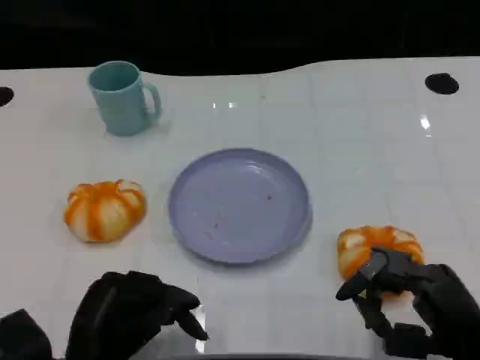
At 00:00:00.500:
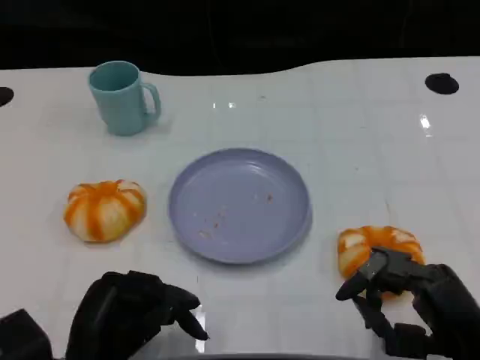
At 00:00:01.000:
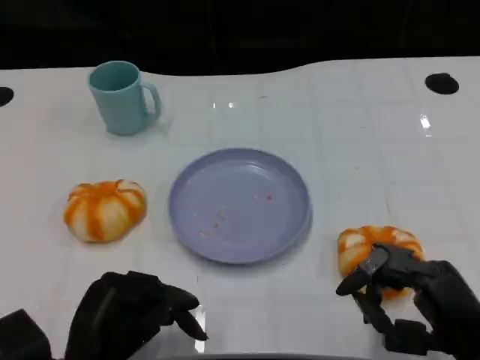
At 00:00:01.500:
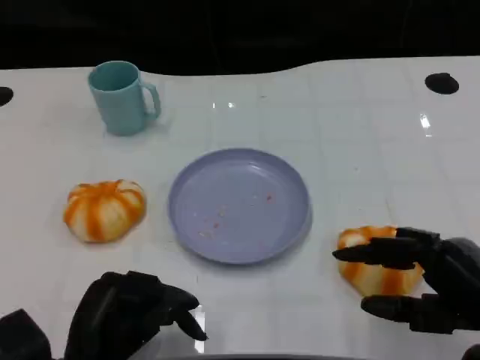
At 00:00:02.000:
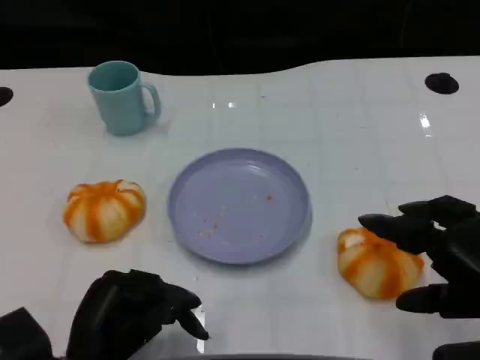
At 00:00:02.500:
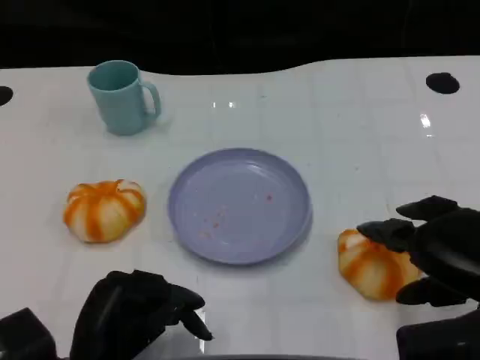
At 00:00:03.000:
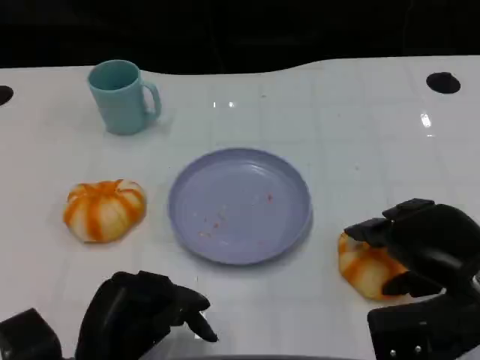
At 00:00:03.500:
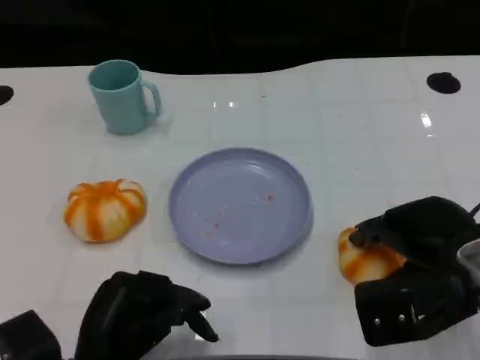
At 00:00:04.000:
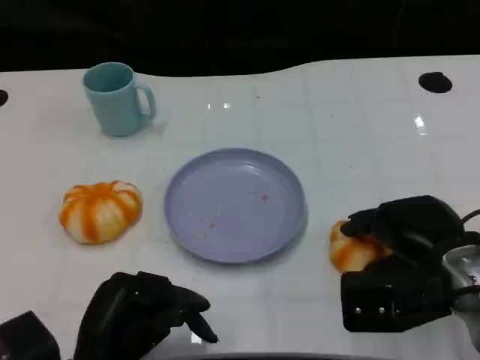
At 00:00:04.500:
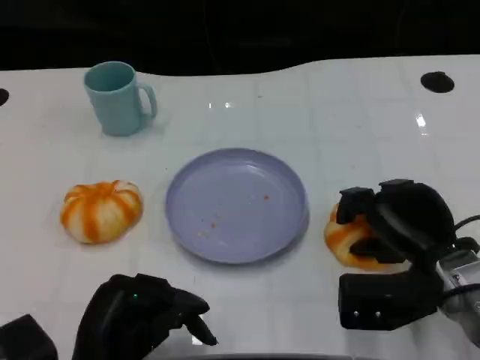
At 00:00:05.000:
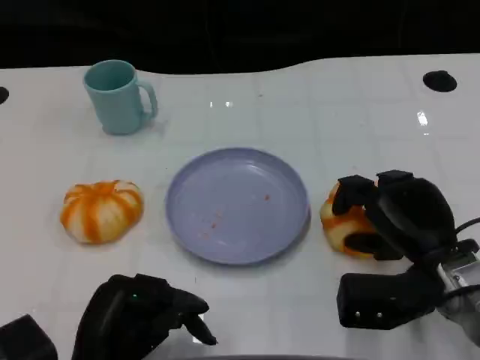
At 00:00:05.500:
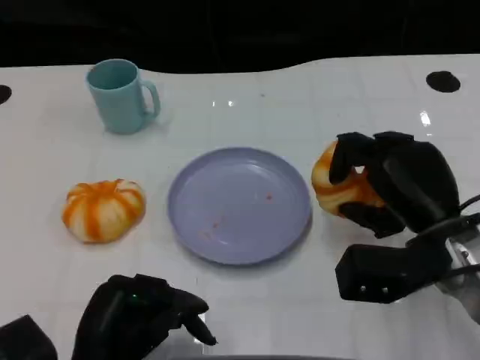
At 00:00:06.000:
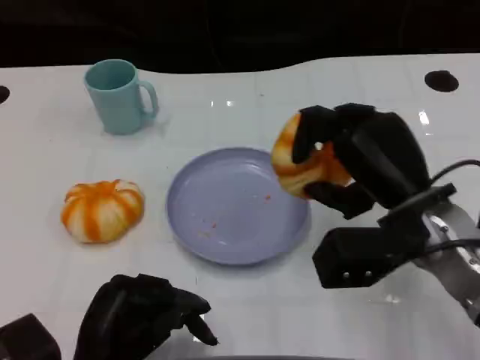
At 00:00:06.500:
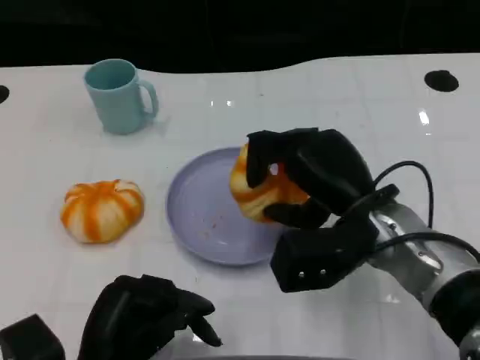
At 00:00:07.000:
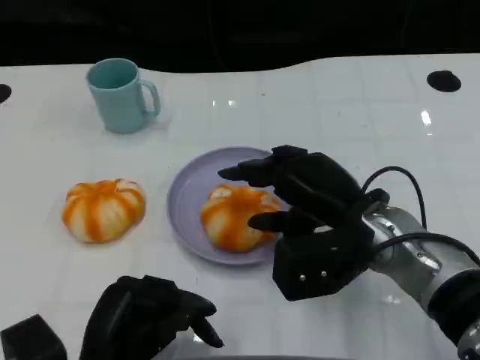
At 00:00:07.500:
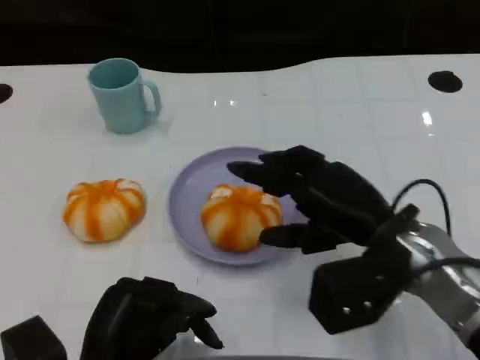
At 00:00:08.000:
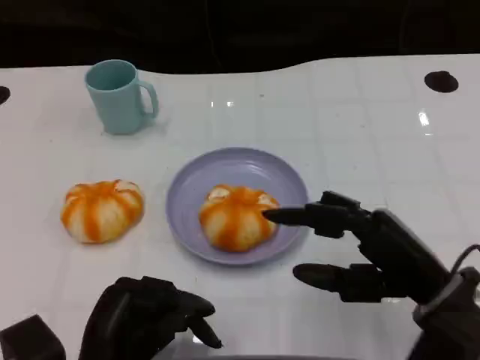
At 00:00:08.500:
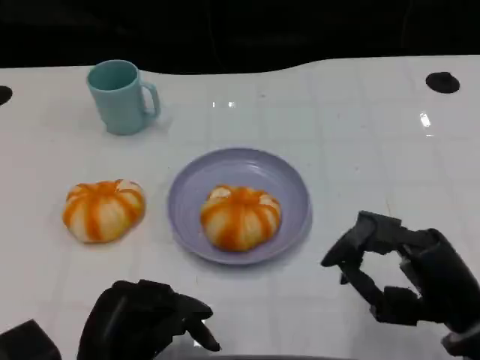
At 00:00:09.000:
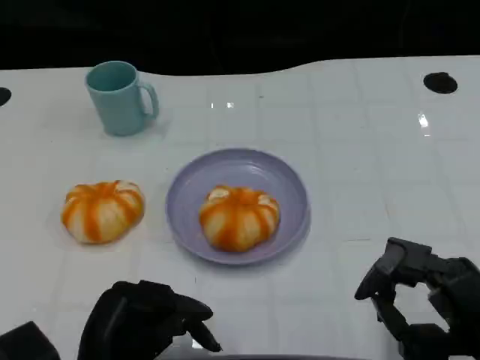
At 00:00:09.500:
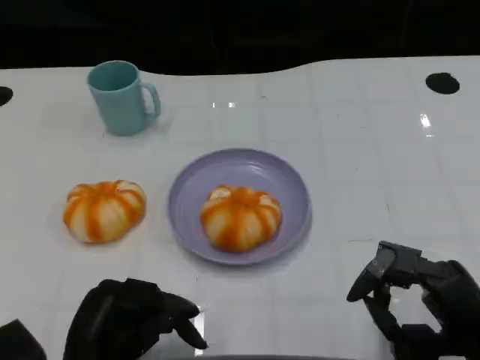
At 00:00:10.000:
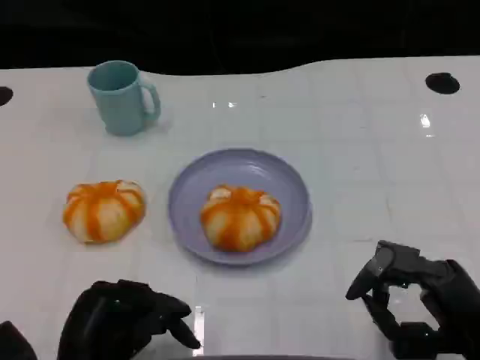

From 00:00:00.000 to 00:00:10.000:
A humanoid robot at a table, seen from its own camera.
Task of the whole recording: Grasp the bread from the table and place it into the plate.
From 00:00:00.000 to 00:00:02.000: The right hand shifts roughly 10 cm upward.
From 00:00:02.000 to 00:00:04.000: The right hand travels forward, to the left and downward by some 10 cm.
From 00:00:04.000 to 00:00:06.000: The right hand shifts by about 5 cm.
From 00:00:06.000 to 00:00:08.000: The right hand goes about 5 cm backward.
From 00:00:08.000 to 00:00:10.000: The right hand shifts by approximately 5 cm.

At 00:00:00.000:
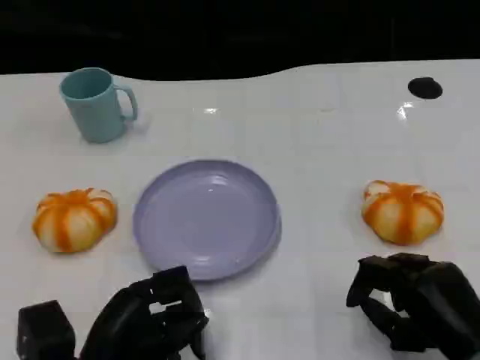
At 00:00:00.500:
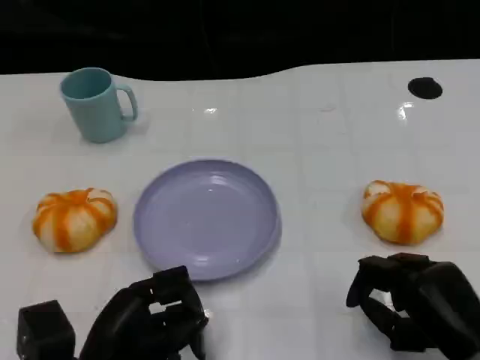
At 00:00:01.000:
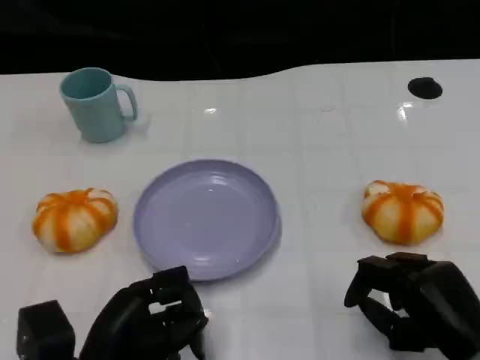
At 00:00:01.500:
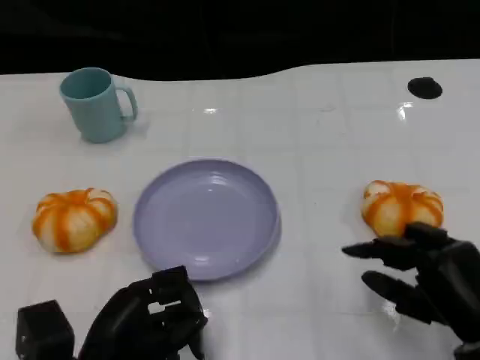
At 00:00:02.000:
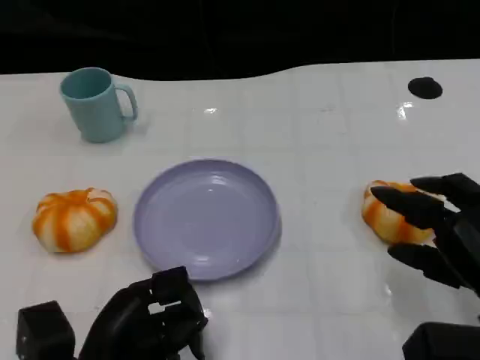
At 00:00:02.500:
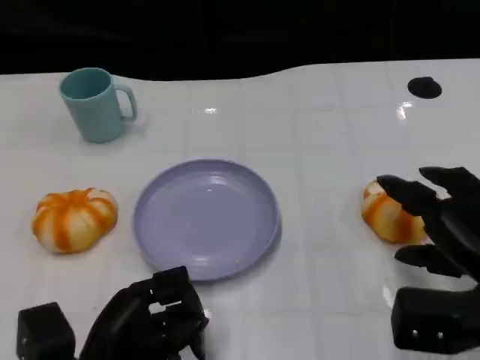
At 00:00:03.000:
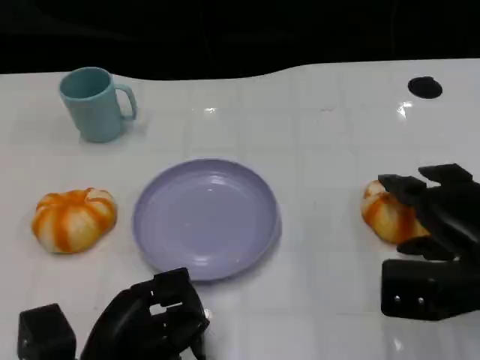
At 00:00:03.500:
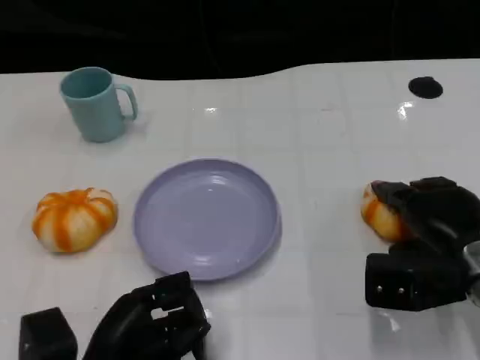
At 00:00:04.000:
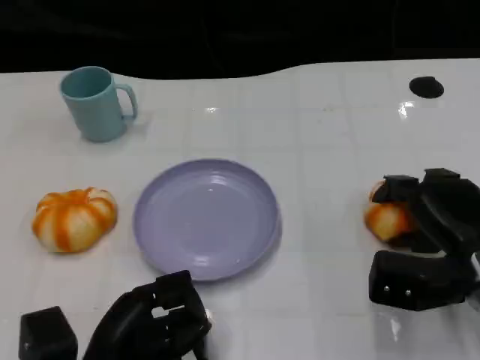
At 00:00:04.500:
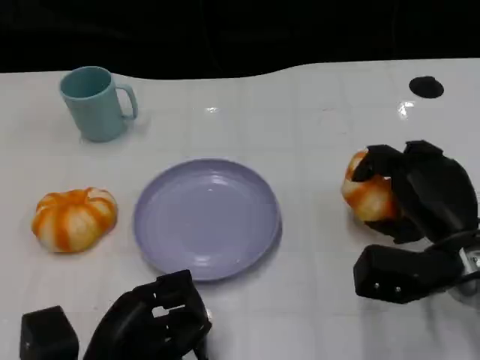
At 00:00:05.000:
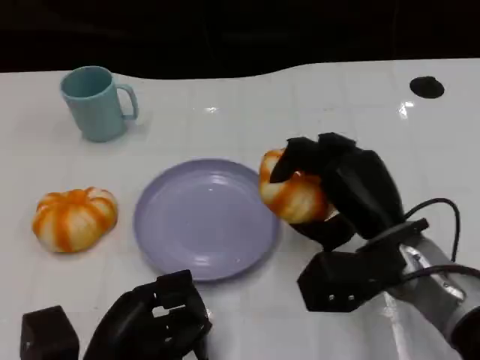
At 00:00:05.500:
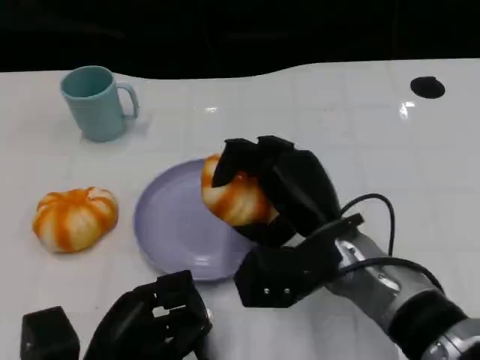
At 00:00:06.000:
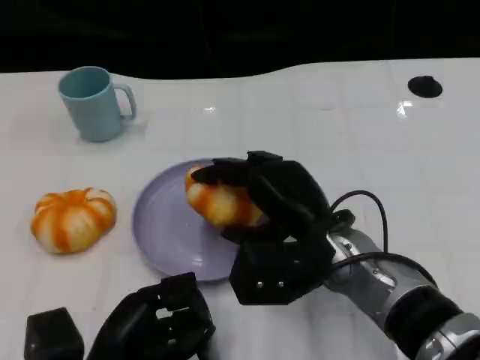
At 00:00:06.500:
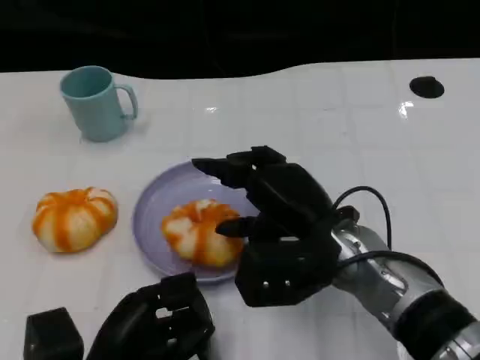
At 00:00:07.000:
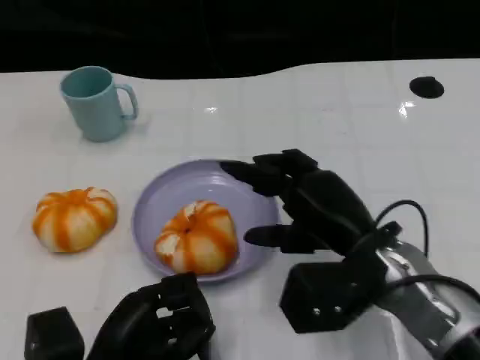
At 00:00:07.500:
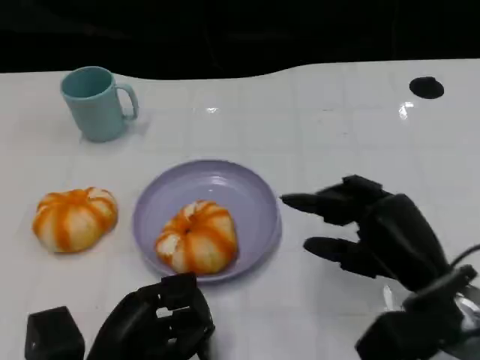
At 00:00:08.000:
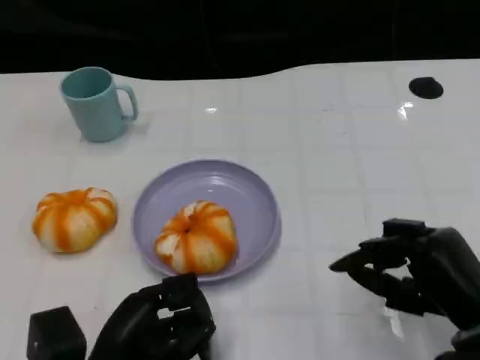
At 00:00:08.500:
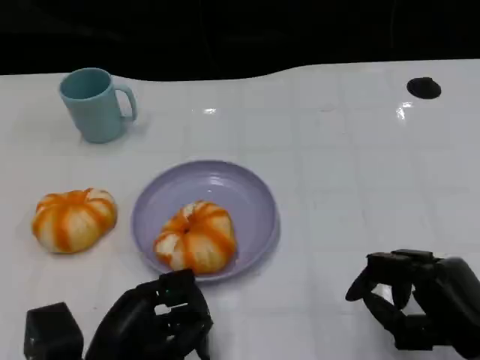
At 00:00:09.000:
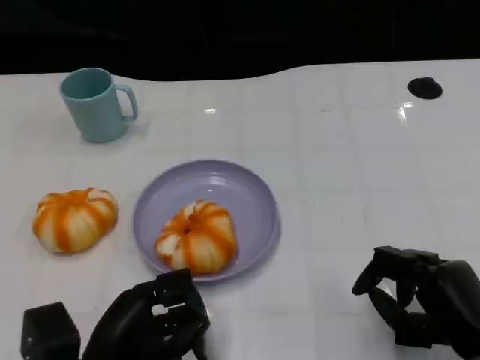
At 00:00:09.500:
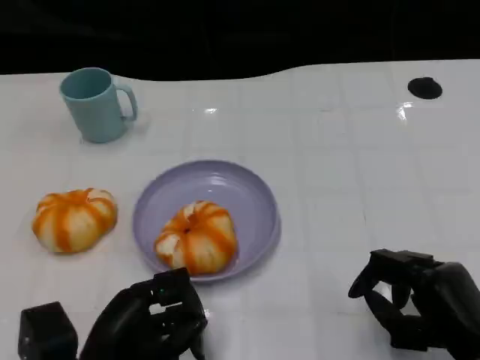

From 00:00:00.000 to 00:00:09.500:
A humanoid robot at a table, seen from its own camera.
Task of the whole recording: Grasp the bread from the table and place it into the plate.
From 00:00:00.000 to 00:00:02.000: The right hand moves upward, about 5 cm.
From 00:00:02.000 to 00:00:04.000: The right hand moves forward, some 5 cm.
From 00:00:04.000 to 00:00:05.500: The right hand travels to the left by about 15 cm.
From 00:00:05.500 to 00:00:07.500: The right hand goes roughly 10 cm to the right.
From 00:00:07.500 to 00:00:09.500: The right hand moves approximately 5 cm.

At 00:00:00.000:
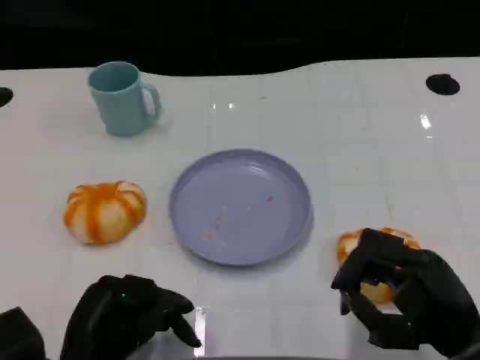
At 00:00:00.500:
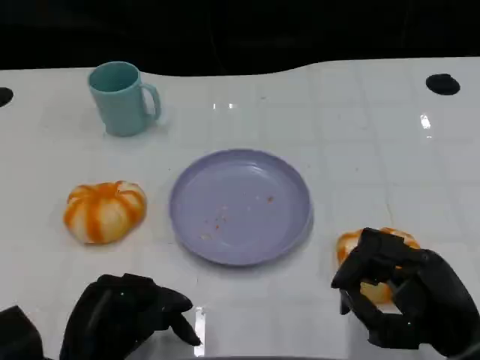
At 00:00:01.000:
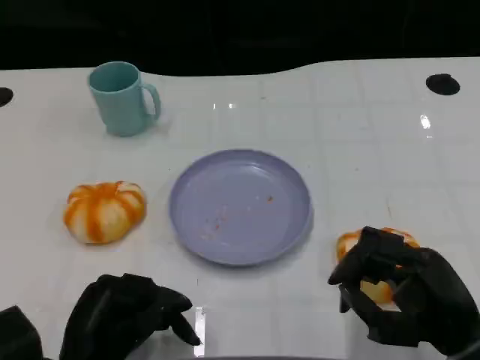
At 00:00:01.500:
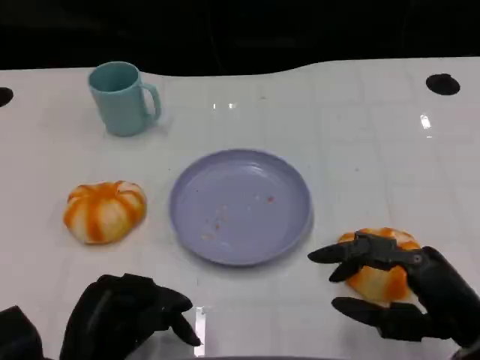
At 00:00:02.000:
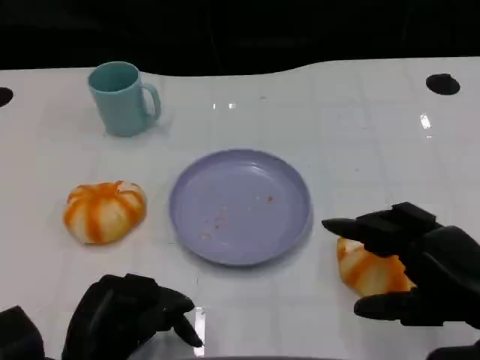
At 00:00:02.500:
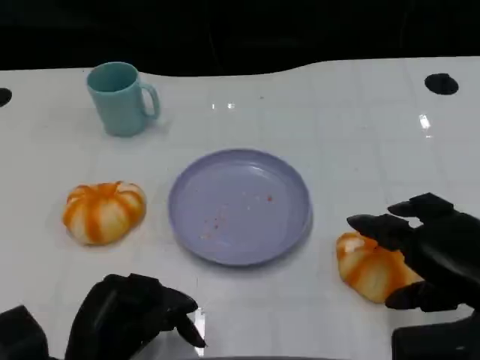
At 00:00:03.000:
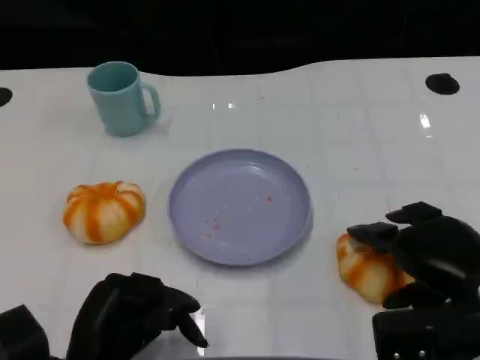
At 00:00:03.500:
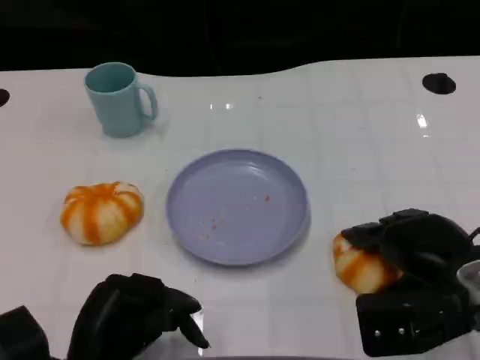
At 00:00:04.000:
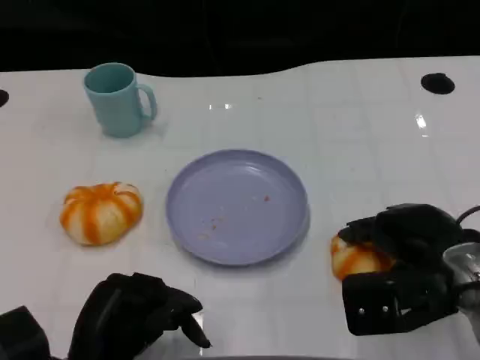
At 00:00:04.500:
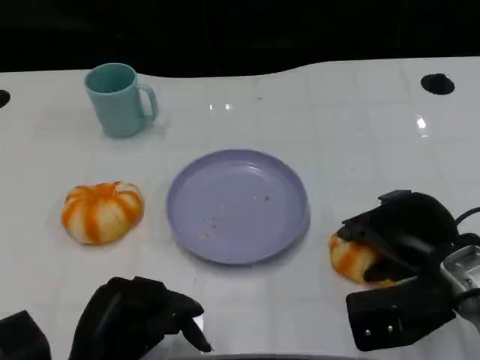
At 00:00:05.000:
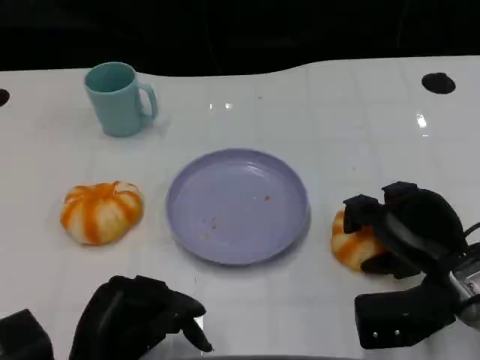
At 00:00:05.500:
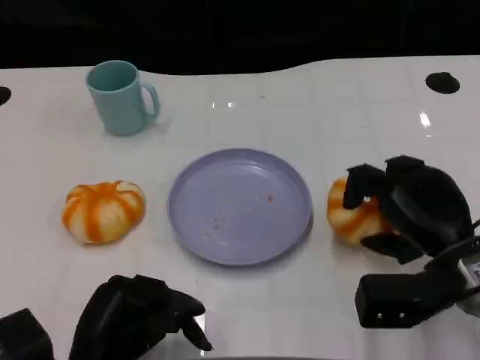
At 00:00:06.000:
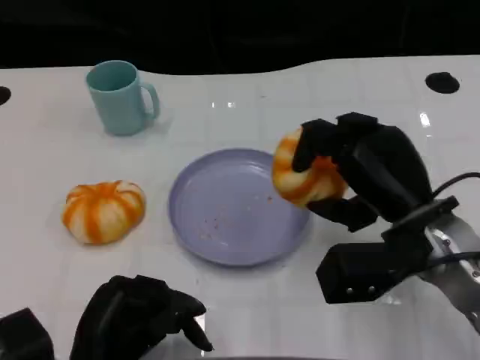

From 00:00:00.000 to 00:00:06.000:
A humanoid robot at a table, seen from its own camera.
Task of the whole recording: Grasp the bread from the table and place it into the plate.
From 00:00:00.000 to 00:00:02.000: The right hand heads upward, covering approximately 5 cm.
From 00:00:02.000 to 00:00:04.000: The right hand goes some 5 cm forward.
From 00:00:04.000 to 00:00:06.000: The right hand ends up about 5 cm from where it was.
